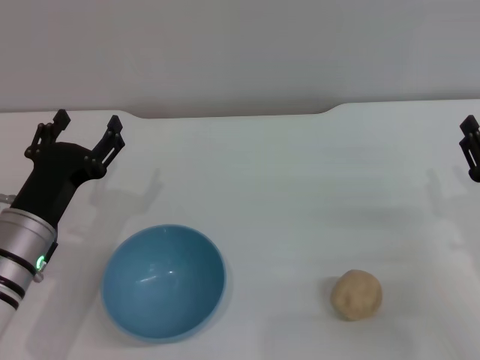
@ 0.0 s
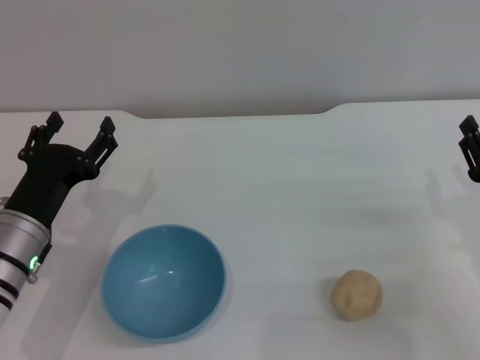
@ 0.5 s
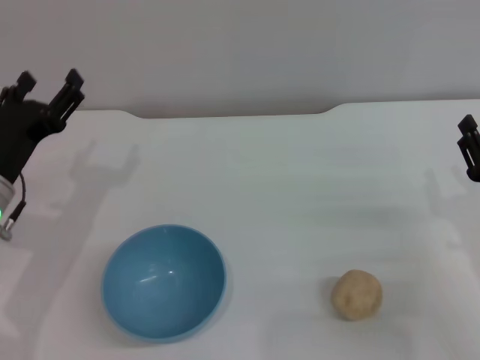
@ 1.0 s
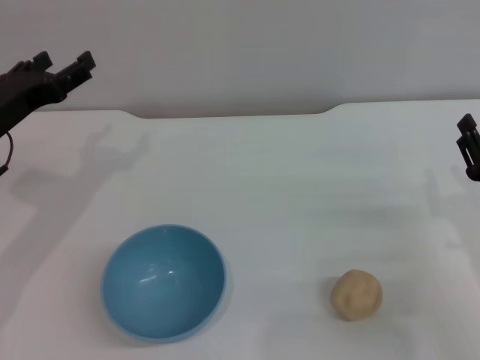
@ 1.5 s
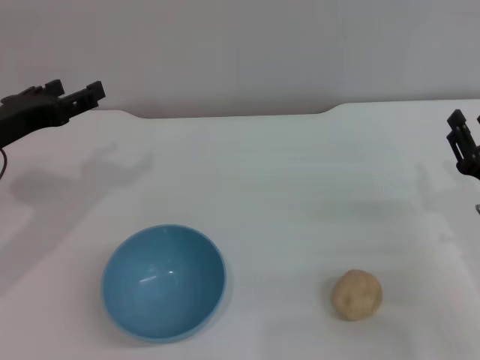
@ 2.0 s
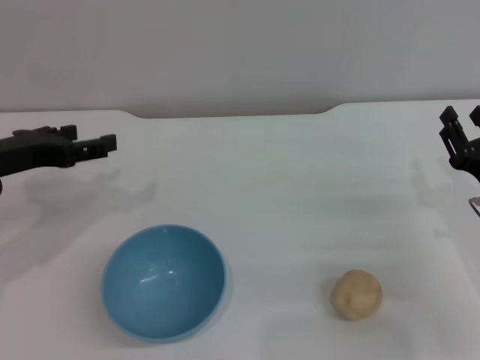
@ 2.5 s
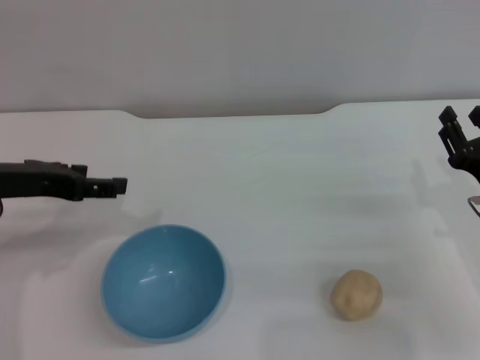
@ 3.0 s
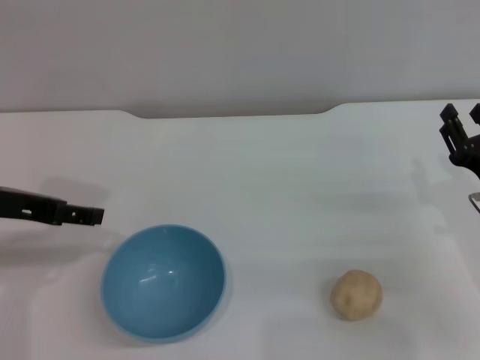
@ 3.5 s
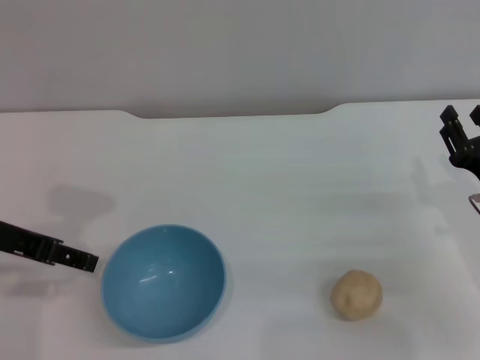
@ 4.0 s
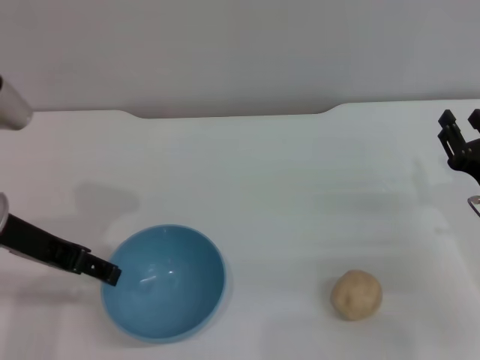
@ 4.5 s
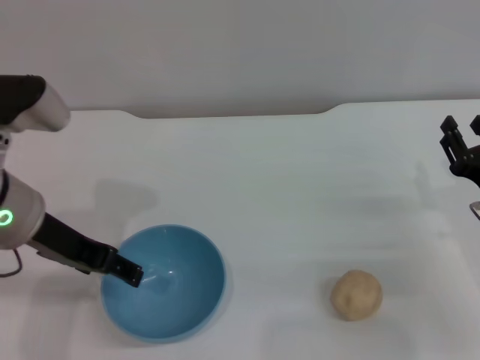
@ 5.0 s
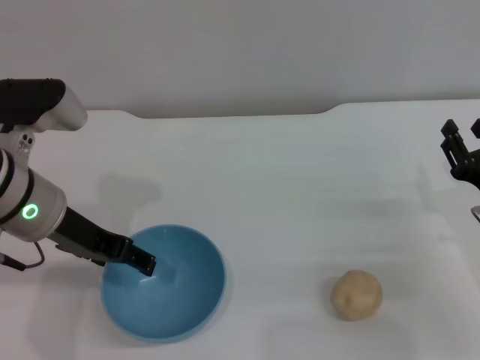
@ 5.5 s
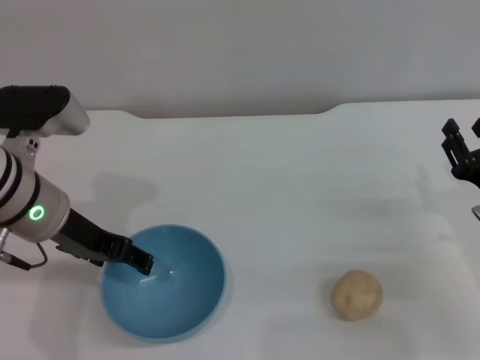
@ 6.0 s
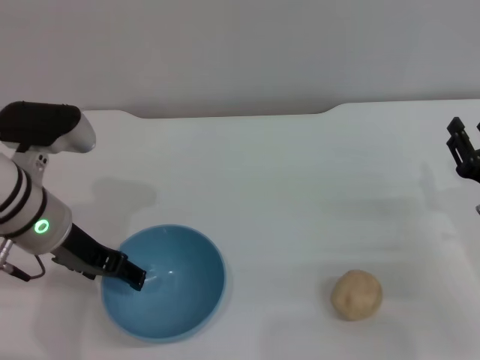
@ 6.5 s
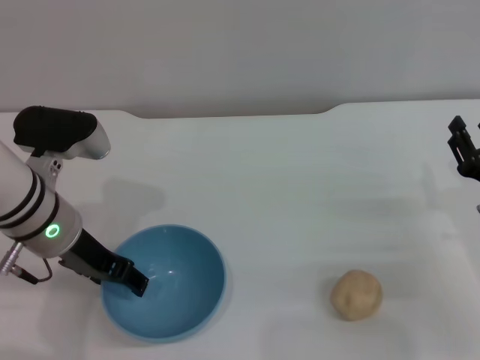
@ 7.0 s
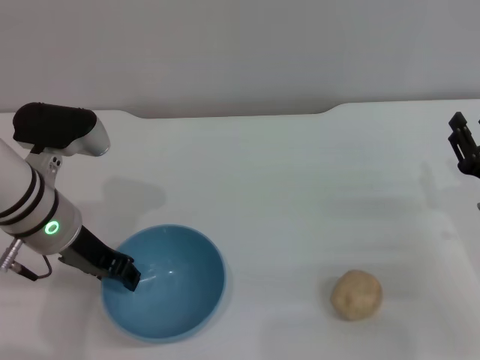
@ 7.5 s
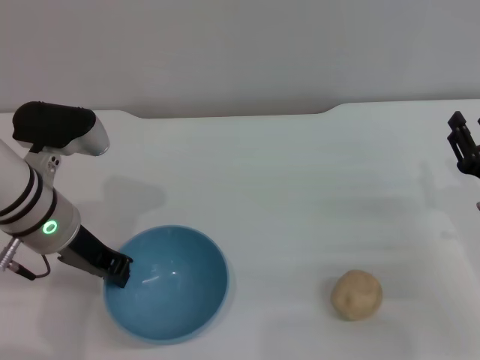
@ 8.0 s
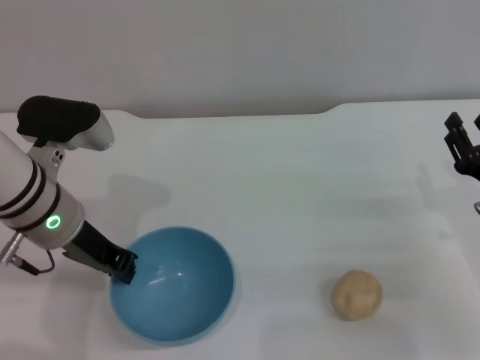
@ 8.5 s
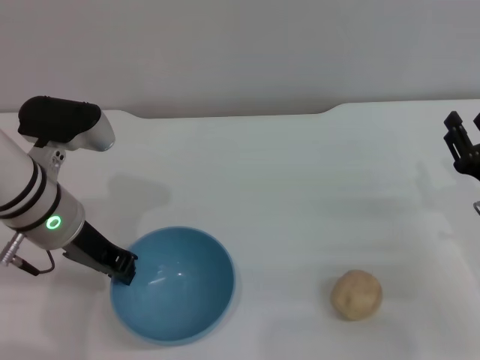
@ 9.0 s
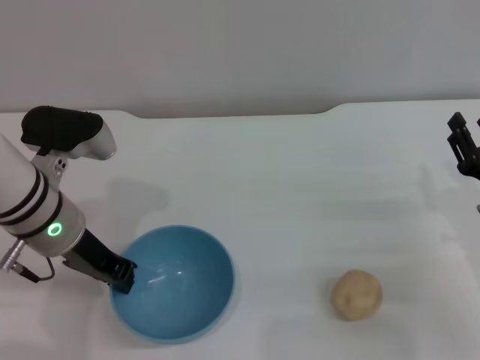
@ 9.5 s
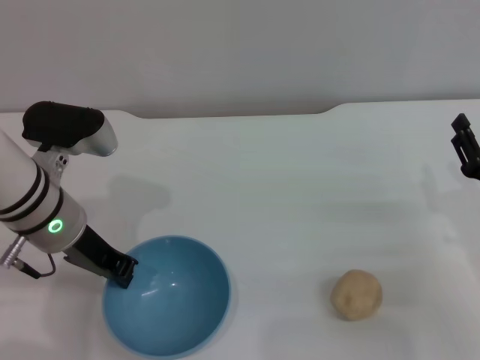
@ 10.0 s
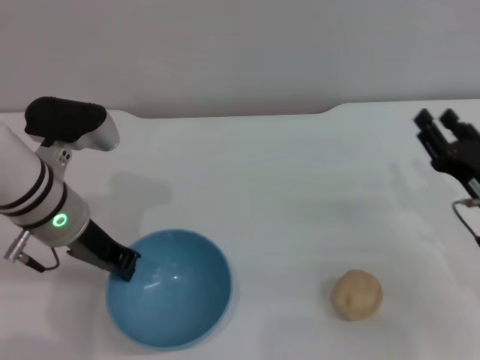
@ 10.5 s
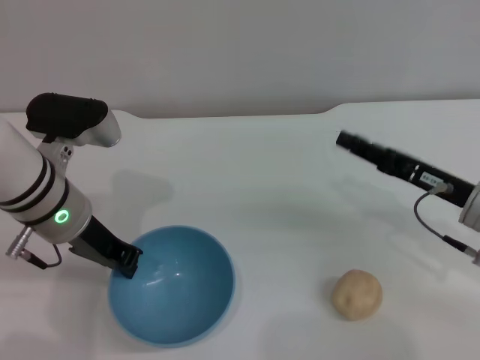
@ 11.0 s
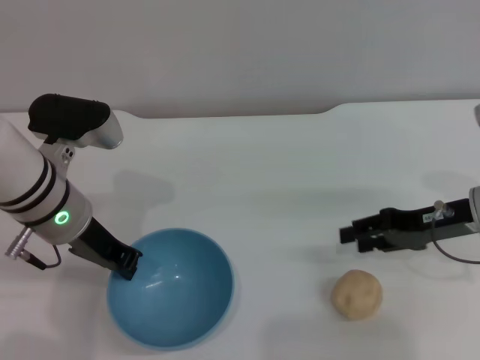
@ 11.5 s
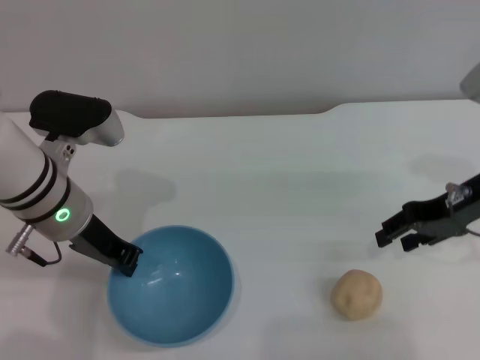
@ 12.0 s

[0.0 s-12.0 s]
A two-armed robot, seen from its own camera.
Task of the whole recording: put the egg yolk pastry into the blue bowl and pour it out repeatedly.
0.0 to 2.0 s: The left gripper travels upward, to the left and forward by about 10 cm.
2.0 to 4.0 s: The left gripper changes place by about 5 cm.
4.0 to 6.0 s: The left gripper heads to the right, covering about 5 cm.
6.0 to 8.0 s: The left gripper closes.
8.0 to 10.0 s: The two grippers keep their place.
10.0 to 12.0 s: The right gripper moves upward and forward, roughly 15 cm.

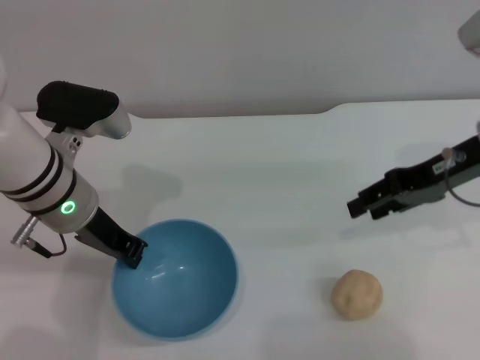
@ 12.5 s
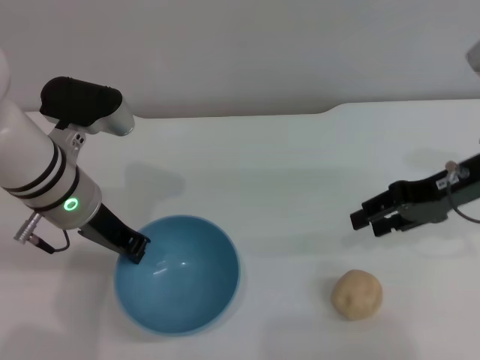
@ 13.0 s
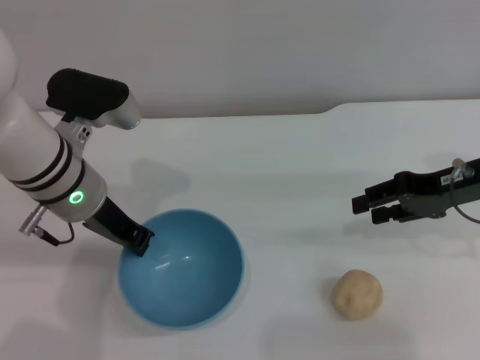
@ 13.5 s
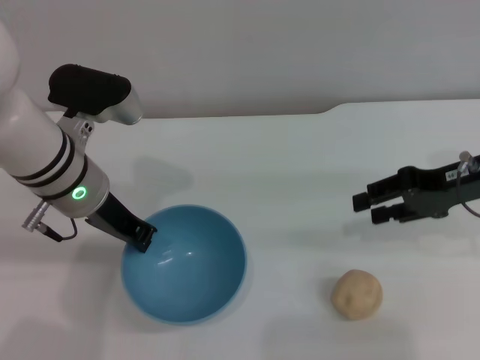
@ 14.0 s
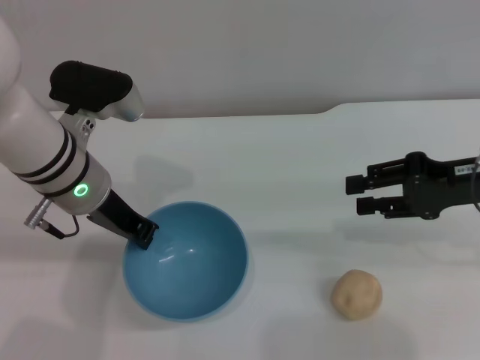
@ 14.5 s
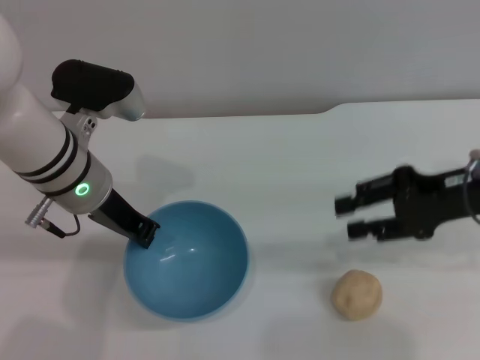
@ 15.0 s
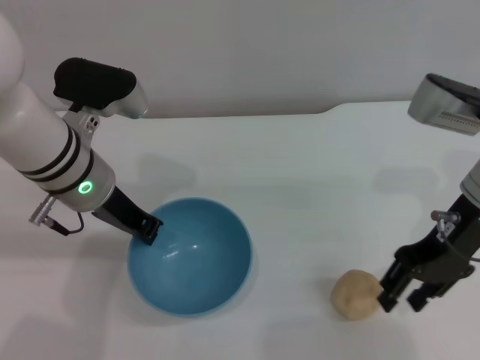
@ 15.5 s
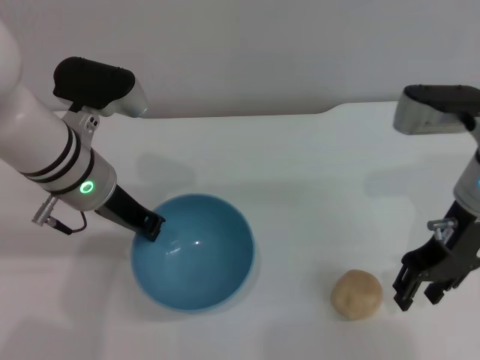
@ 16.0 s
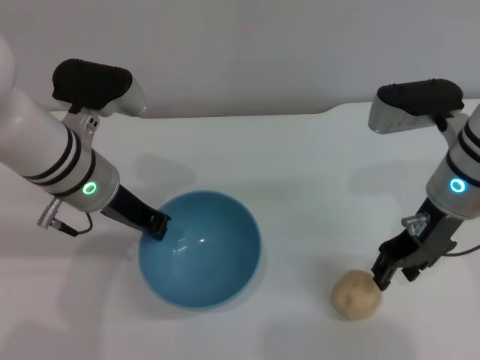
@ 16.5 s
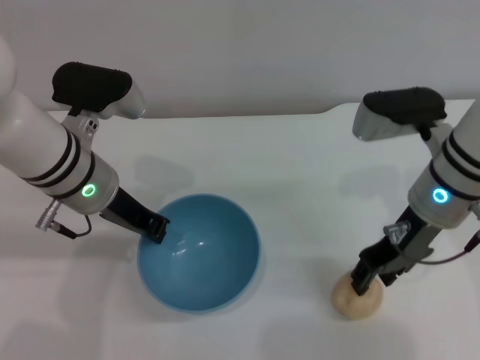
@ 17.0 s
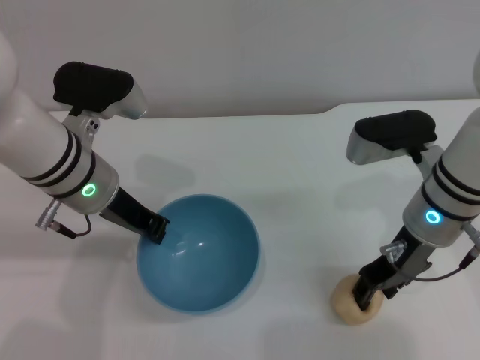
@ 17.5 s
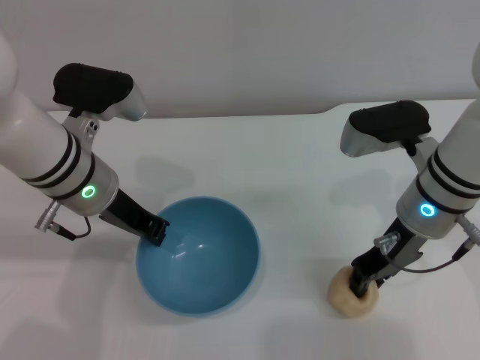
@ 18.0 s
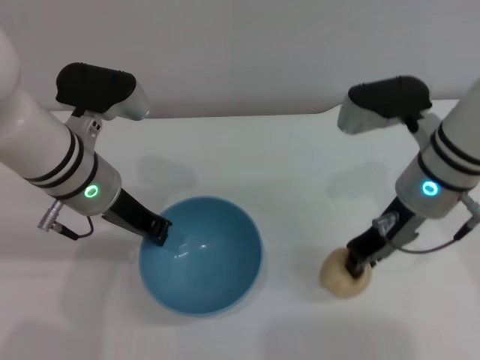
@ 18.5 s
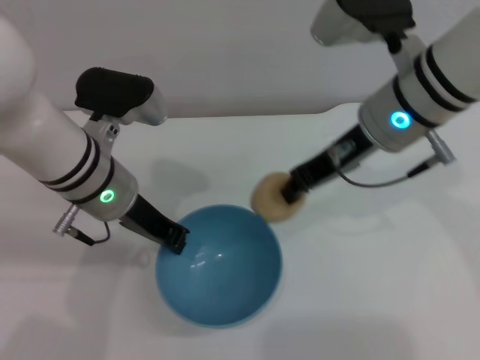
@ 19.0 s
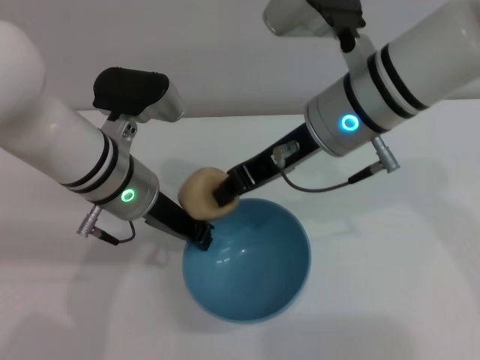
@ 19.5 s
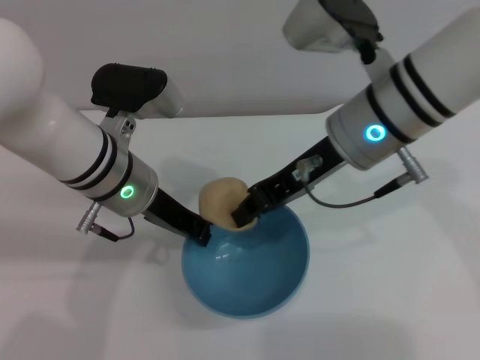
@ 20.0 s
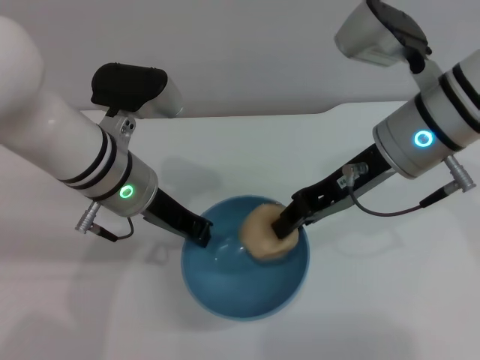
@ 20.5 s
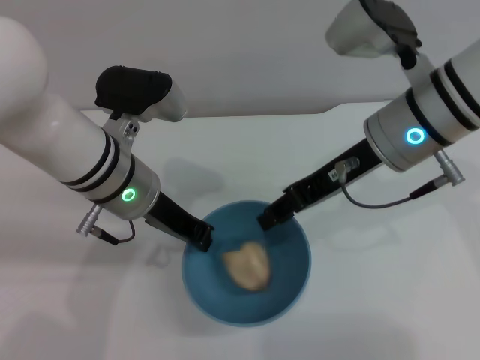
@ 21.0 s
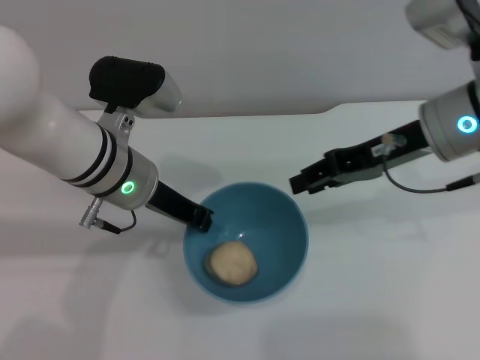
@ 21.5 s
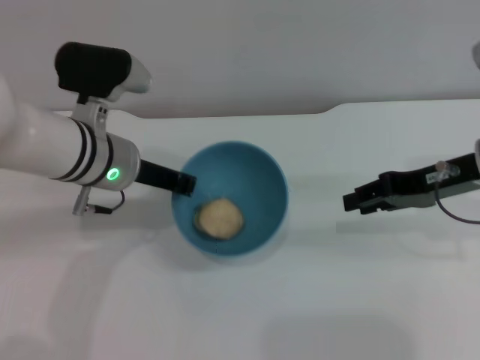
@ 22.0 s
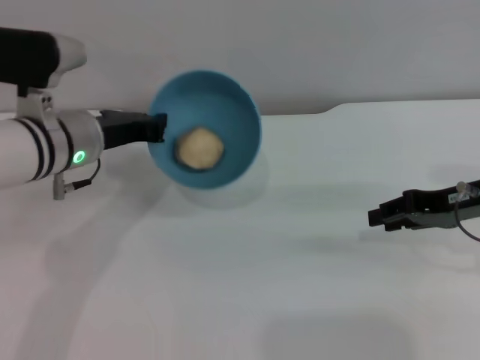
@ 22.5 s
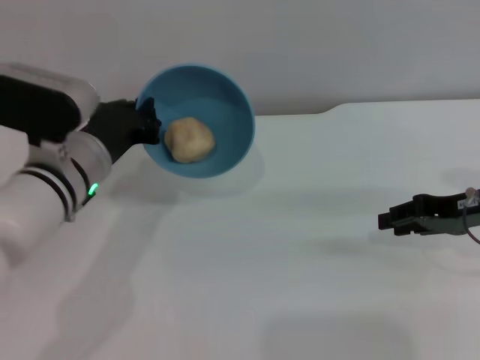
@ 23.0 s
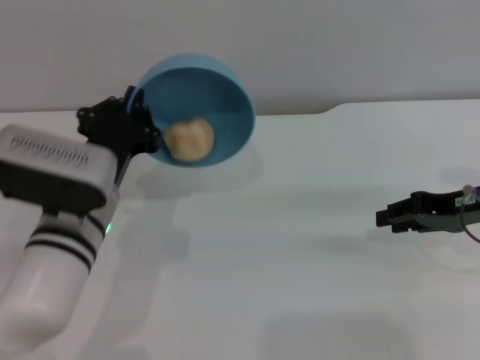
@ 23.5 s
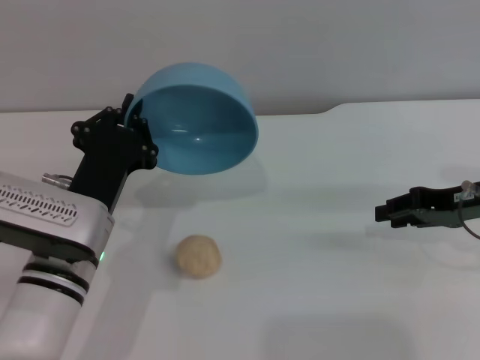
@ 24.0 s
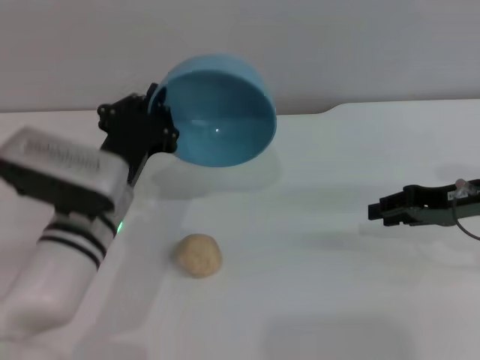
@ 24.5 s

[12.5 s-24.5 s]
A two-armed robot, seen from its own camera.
Task of the whole recording: put the egg yolk pastry into the blue bowl and pour it out repeatedly.
Step, 16.0 to 18.5 s: Pick up the egg yolk pastry with the right gripper.
Step, 19.0 to 21.0 s: Place the egg yolk pastry into the bowl.
Step, 22.0 to 24.0 s: Pour the egg yolk pastry out of bowl.
12.5 to 14.5 s: The right gripper shifts by approximately 5 cm.
14.5 to 16.5 s: The right gripper moves to the left, approximately 10 cm.
16.5 to 18.5 s: The right gripper closes.
18.5 to 20.5 s: The right gripper is displaced upward by approximately 5 cm.
20.5 to 22.5 s: The left gripper heads to the left, covering roughly 5 cm, while the right gripper goes some 15 cm to the right and downward, and opens up.
22.5 to 24.5 s: The left gripper is displaced backward and downward by roughly 10 cm.

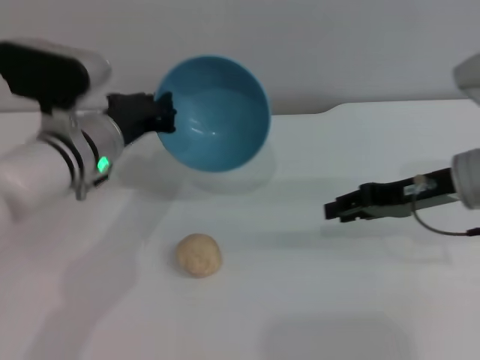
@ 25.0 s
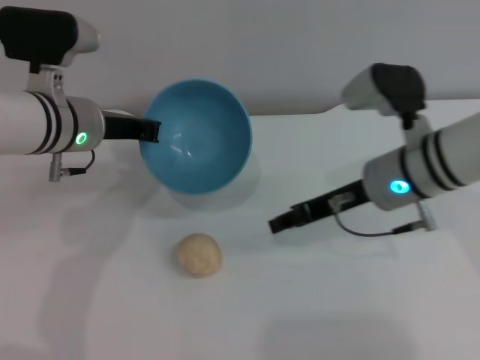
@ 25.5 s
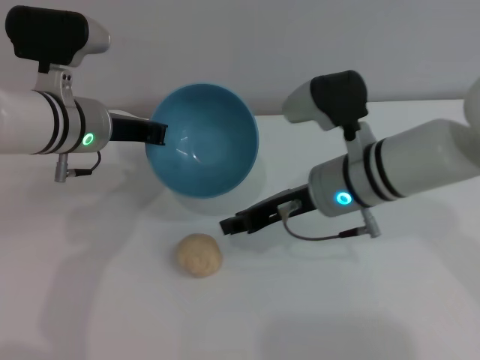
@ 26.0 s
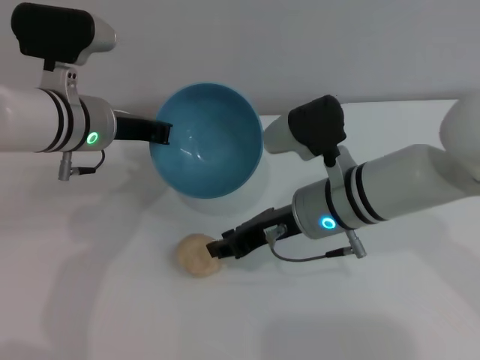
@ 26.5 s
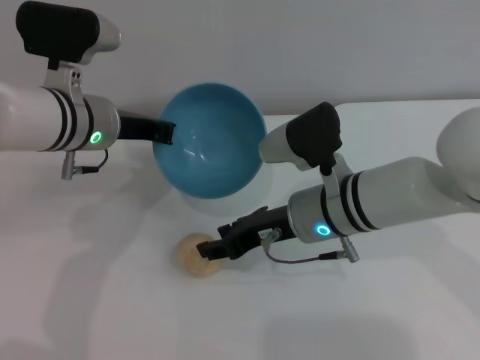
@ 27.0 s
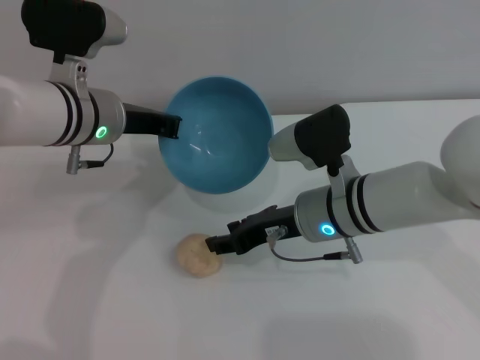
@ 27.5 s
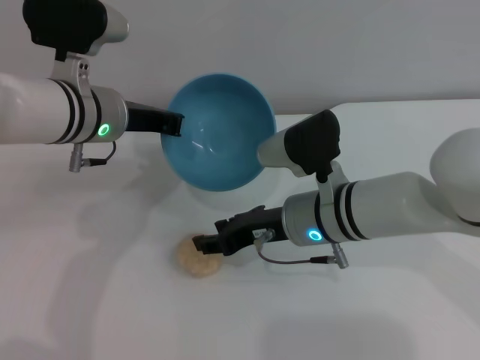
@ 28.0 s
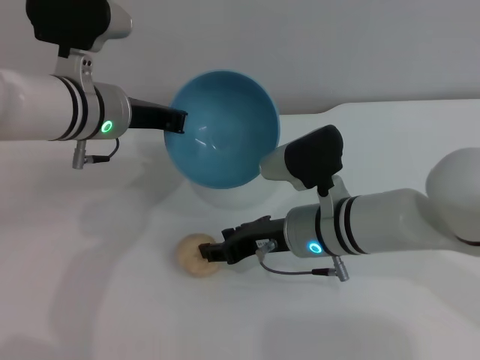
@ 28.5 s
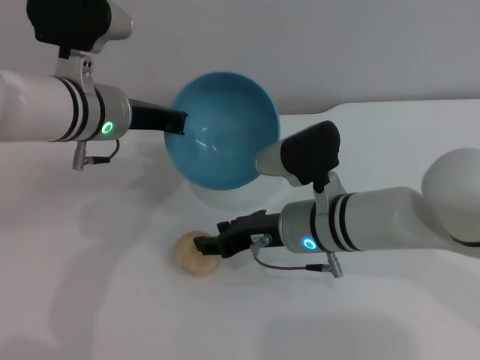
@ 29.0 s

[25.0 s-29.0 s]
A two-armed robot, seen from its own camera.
Task of the whole recording: put the egg yolk pastry into the blue bowl and pour it out repeatedly.
25.0 to 27.0 s: The right gripper shifts about 15 cm to the left.
27.0 to 29.0 s: There are only small adjustments of the grippers.
